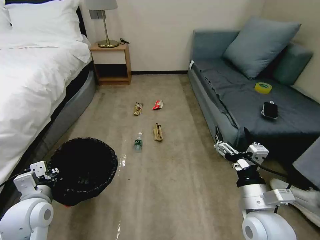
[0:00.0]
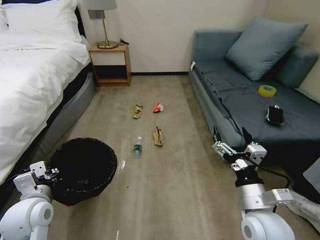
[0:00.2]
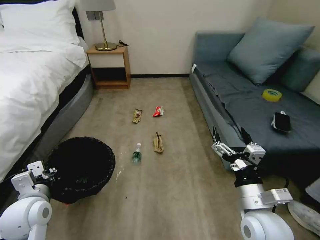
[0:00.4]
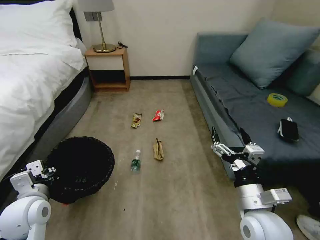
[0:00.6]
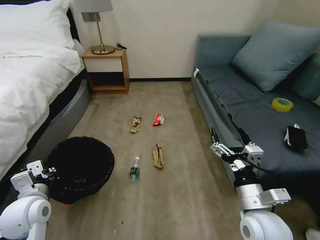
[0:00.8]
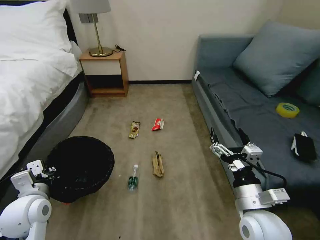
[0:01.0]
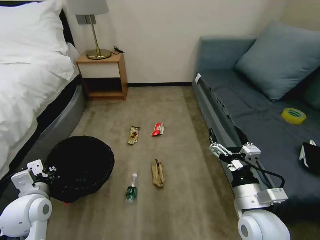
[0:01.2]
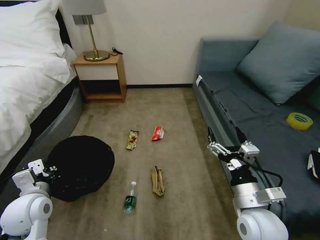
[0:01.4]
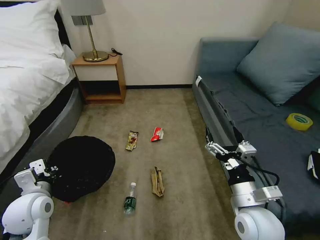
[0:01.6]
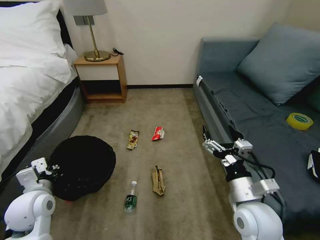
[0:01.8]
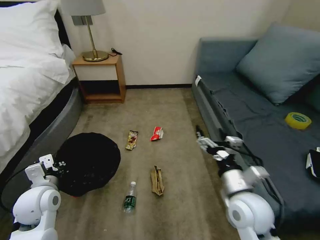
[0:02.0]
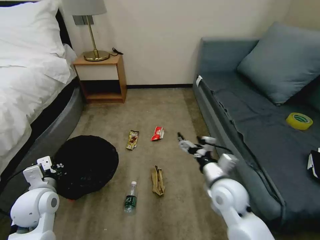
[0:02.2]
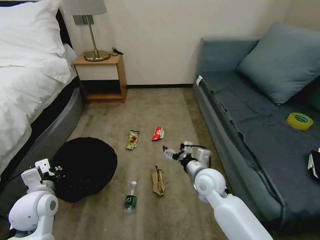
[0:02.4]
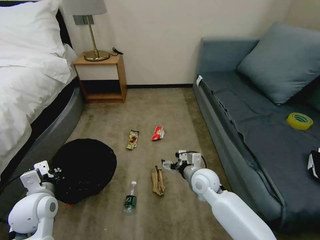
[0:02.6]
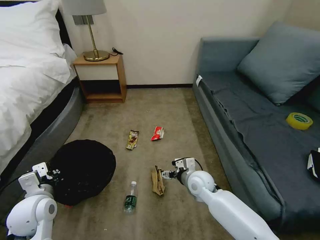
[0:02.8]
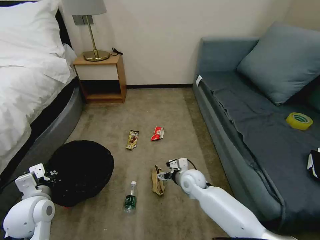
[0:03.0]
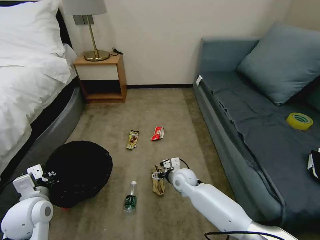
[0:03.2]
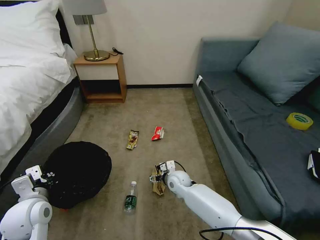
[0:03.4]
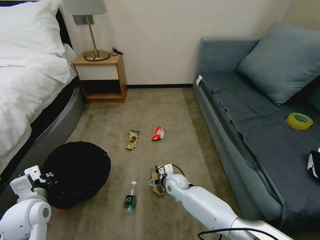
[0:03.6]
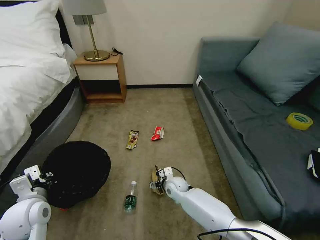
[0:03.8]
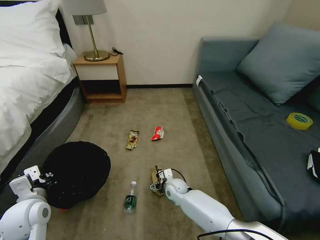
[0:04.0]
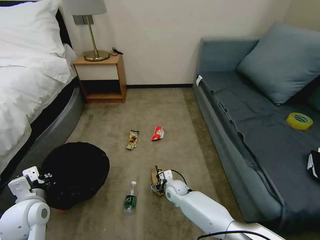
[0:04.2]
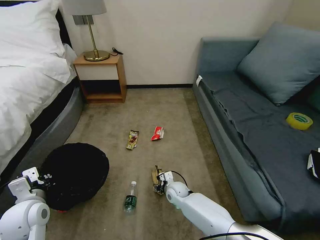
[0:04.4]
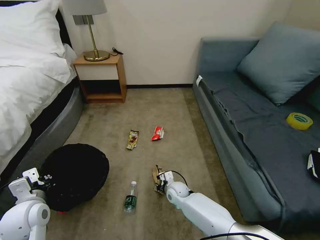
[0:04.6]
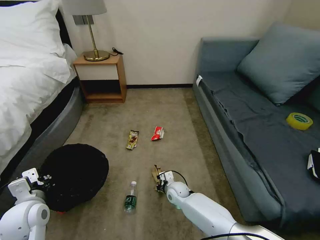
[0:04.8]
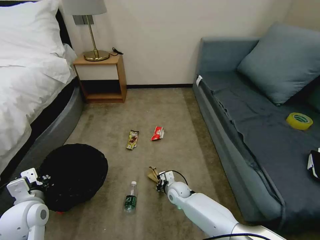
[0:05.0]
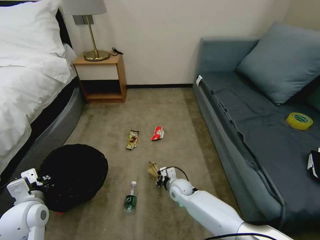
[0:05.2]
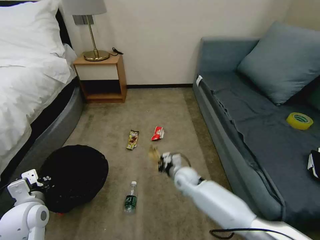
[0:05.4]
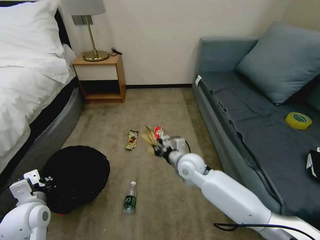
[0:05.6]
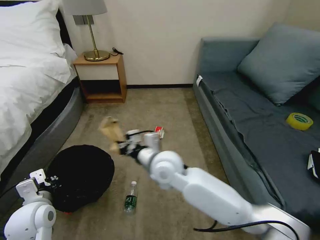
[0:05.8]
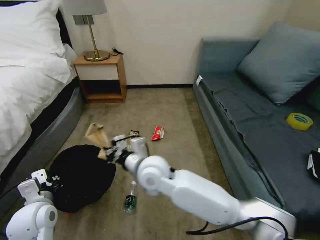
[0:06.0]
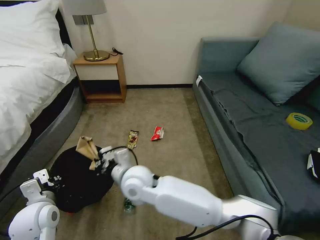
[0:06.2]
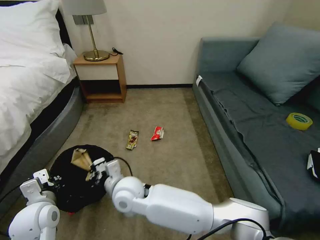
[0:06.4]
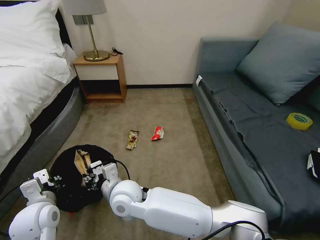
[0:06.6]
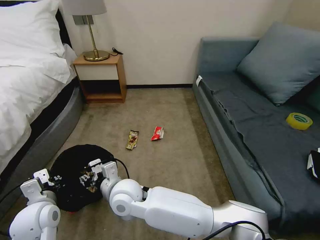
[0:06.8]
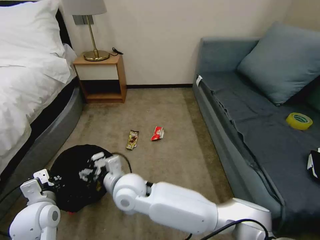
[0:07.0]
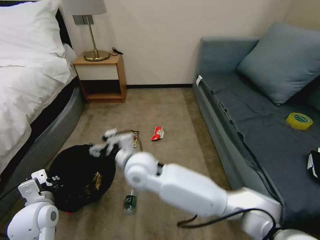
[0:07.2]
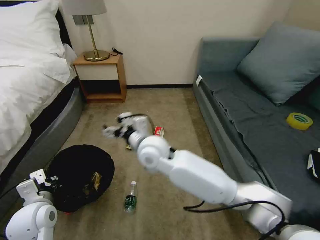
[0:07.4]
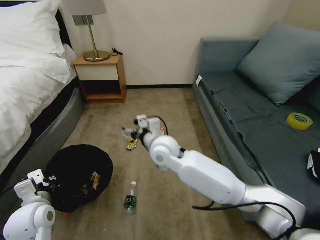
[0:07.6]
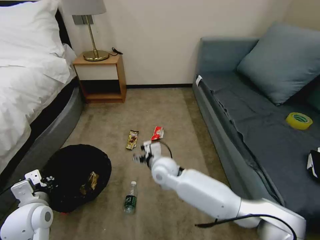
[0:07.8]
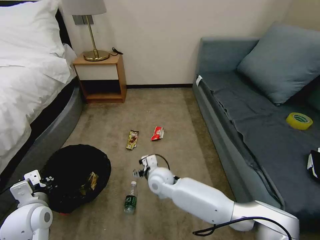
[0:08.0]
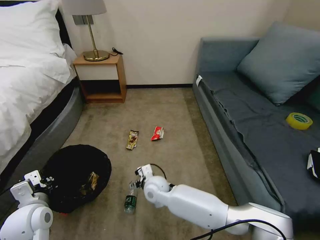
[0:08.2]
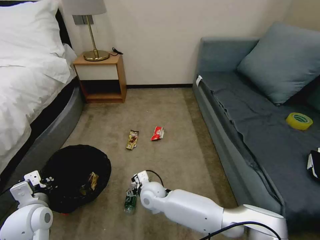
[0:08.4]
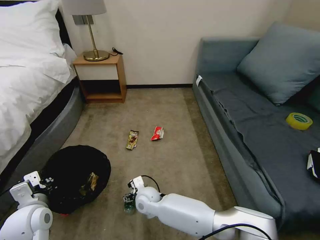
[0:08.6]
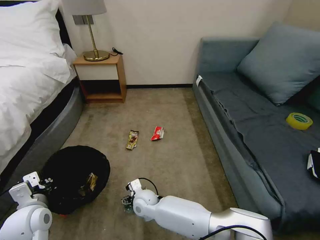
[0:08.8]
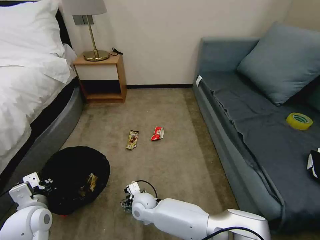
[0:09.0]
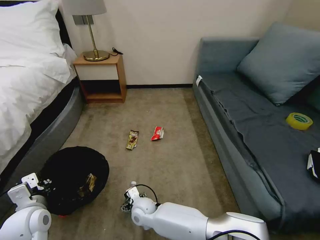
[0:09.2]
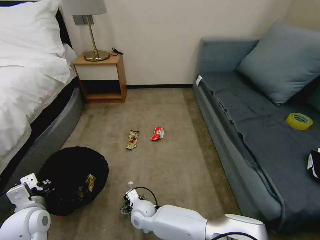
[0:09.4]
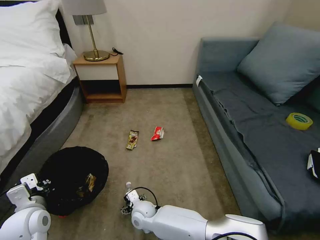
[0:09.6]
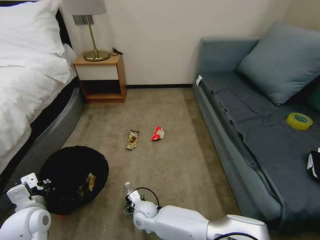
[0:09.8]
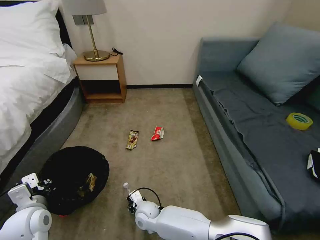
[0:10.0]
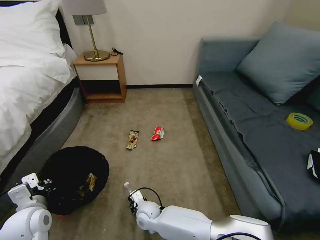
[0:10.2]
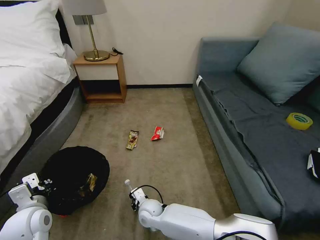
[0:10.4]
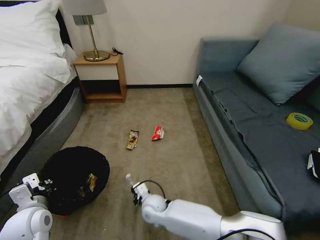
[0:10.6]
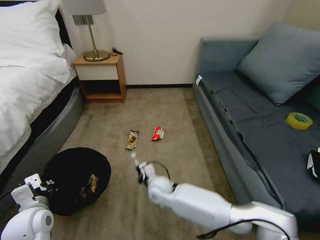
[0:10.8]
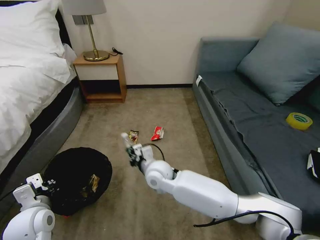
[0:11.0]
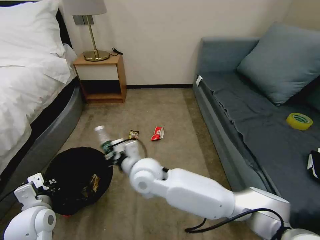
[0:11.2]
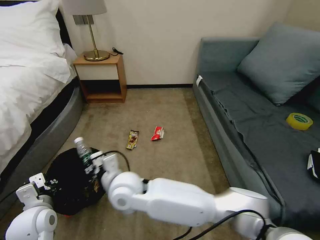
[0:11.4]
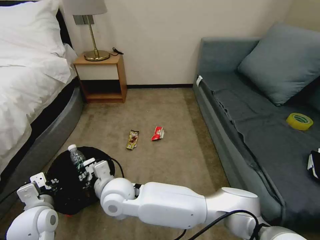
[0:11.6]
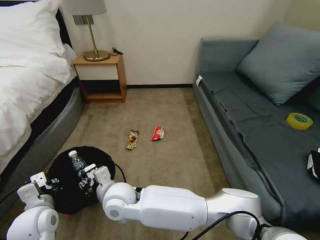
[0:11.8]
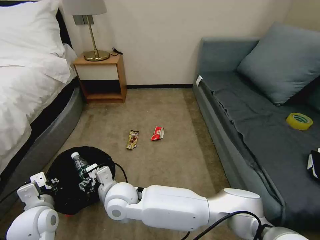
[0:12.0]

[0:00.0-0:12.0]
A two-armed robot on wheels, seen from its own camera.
Task of the whole recording: Pick up the trash bin, then pick up the garbage on the floor and place it into the trash bin.
0:01.6 to 0:03.0: The right gripper moves forward, downward and to the left, roughly 25 cm.
0:03.0 to 0:04.4: The right gripper goes some 10 cm downward, and closes its fingers.
0:04.4 to 0:06.0: The right gripper moves upward, approximately 30 cm, and closes its fingers.
0:06.0 to 0:07.6: The right gripper heads forward, covering some 5 cm, and opens its fingers.
0:07.6 to 0:09.0: The right gripper shifts approximately 25 cm downward.
0:09.0 to 0:10.4: The right gripper closes.
0:10.4 to 0:12.0: The right gripper travels upward by roughly 20 cm.

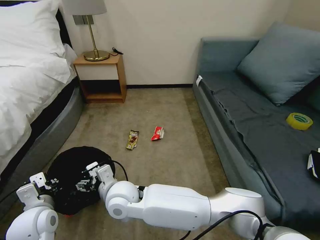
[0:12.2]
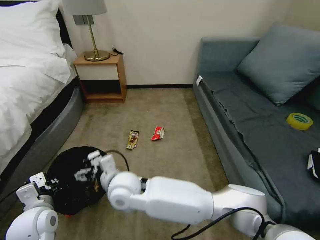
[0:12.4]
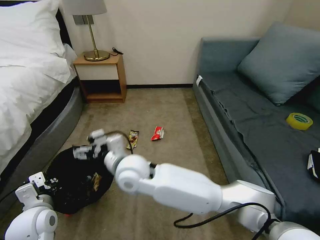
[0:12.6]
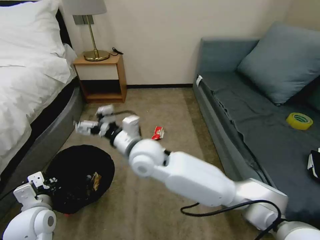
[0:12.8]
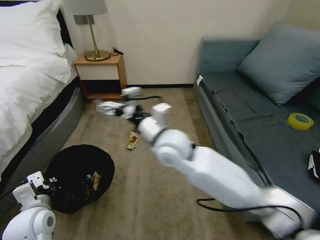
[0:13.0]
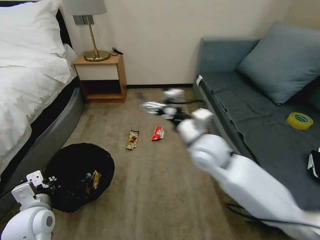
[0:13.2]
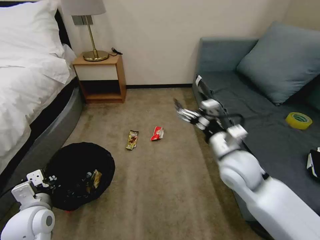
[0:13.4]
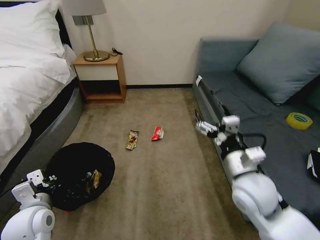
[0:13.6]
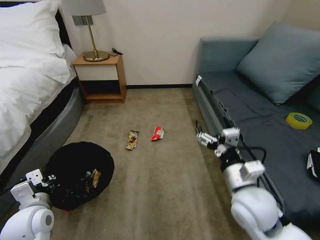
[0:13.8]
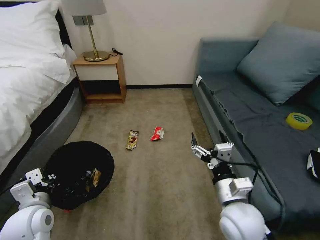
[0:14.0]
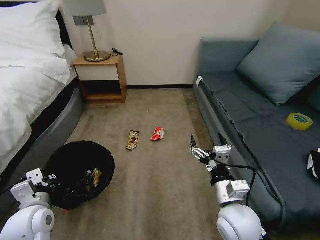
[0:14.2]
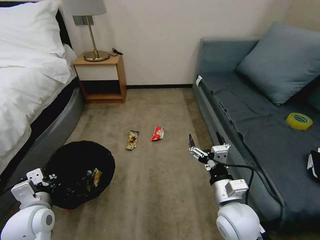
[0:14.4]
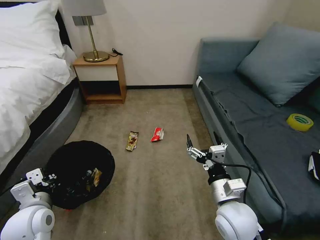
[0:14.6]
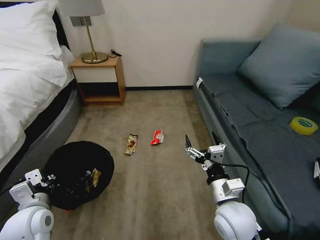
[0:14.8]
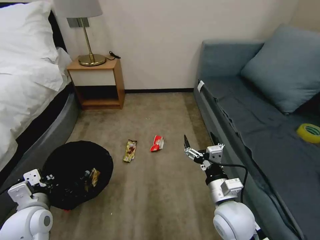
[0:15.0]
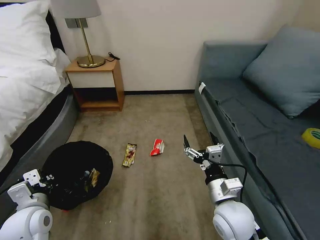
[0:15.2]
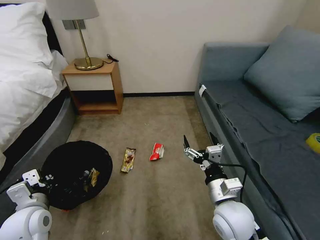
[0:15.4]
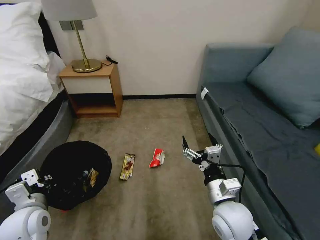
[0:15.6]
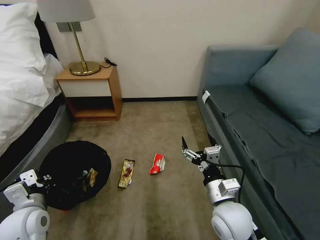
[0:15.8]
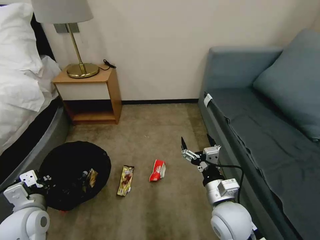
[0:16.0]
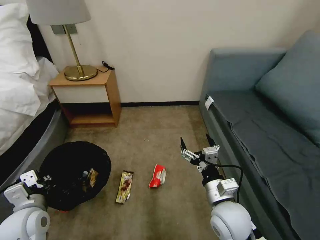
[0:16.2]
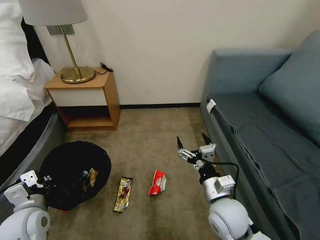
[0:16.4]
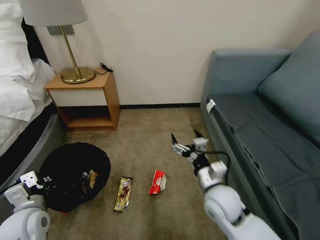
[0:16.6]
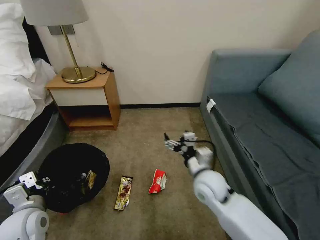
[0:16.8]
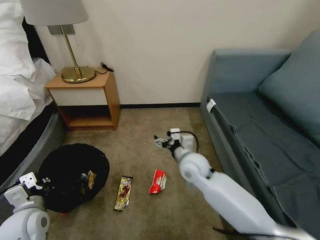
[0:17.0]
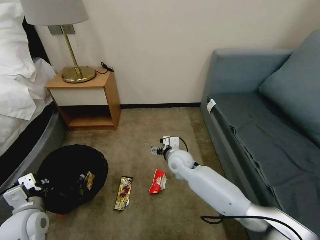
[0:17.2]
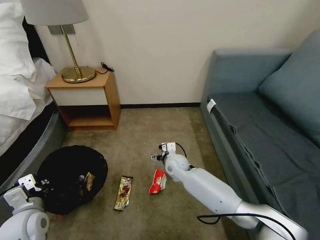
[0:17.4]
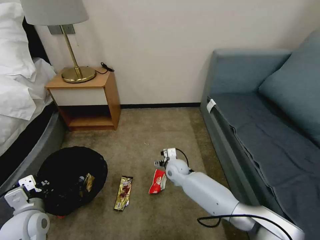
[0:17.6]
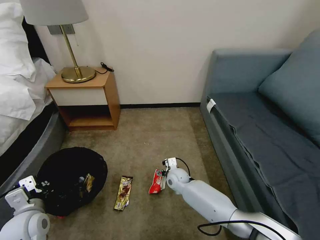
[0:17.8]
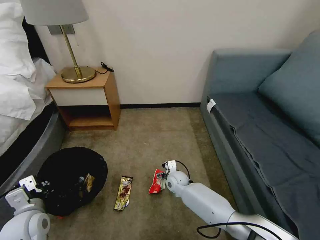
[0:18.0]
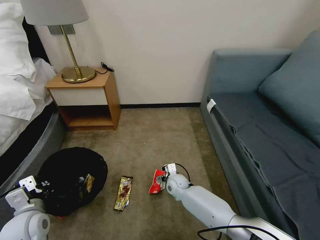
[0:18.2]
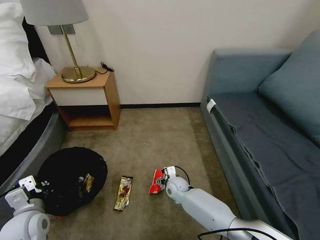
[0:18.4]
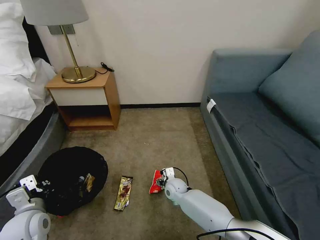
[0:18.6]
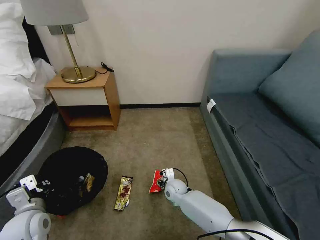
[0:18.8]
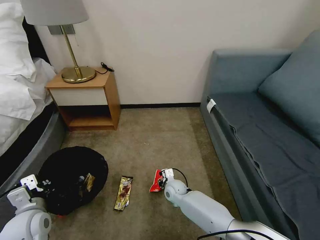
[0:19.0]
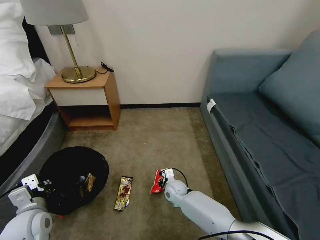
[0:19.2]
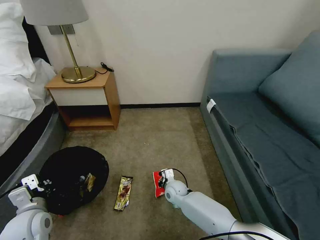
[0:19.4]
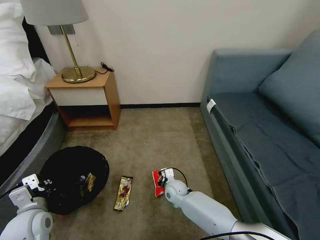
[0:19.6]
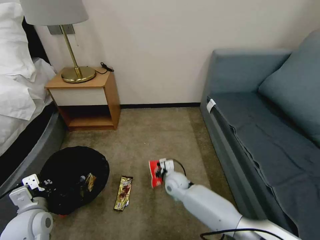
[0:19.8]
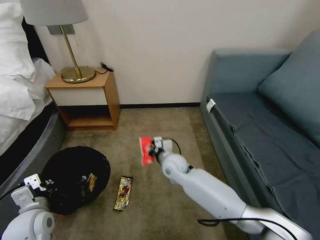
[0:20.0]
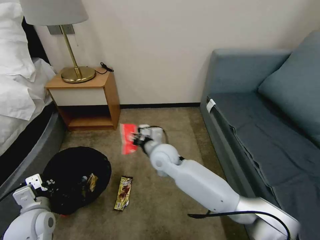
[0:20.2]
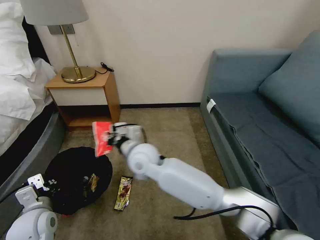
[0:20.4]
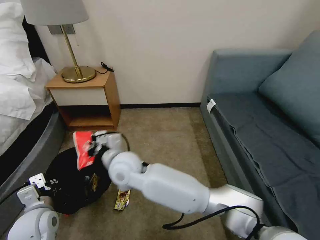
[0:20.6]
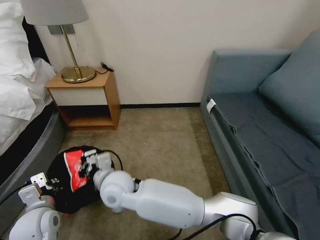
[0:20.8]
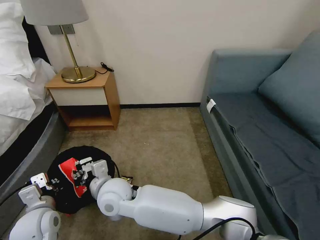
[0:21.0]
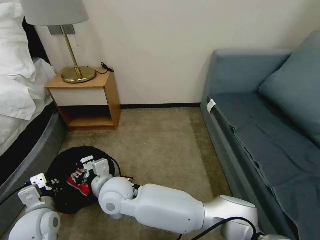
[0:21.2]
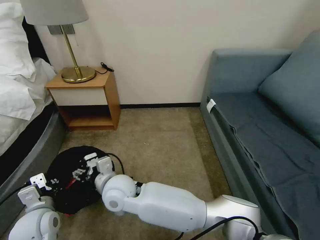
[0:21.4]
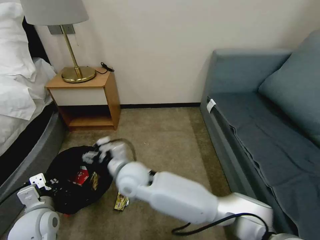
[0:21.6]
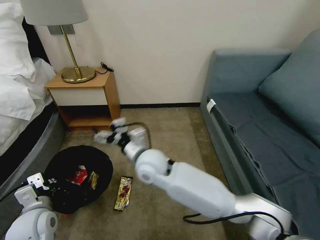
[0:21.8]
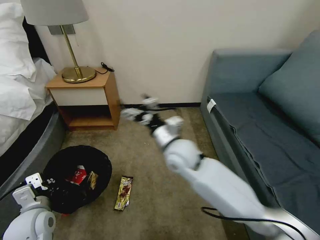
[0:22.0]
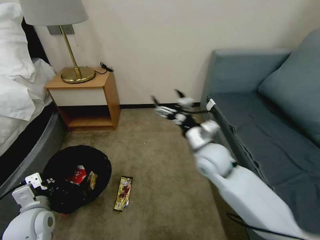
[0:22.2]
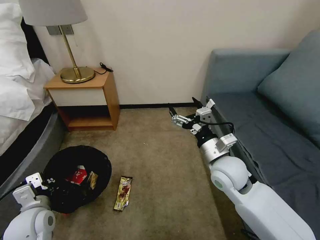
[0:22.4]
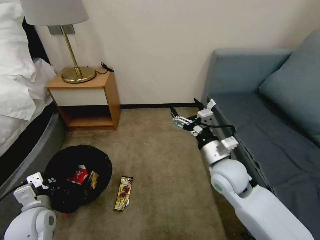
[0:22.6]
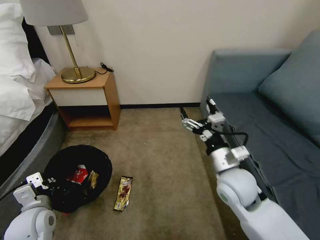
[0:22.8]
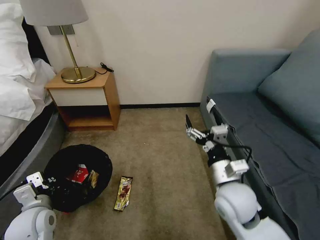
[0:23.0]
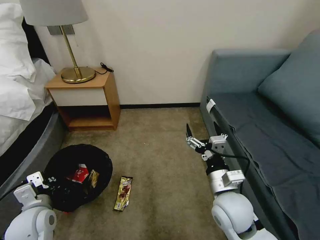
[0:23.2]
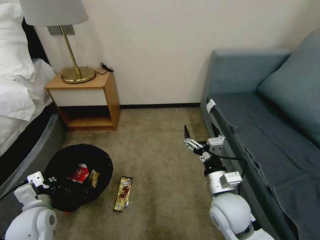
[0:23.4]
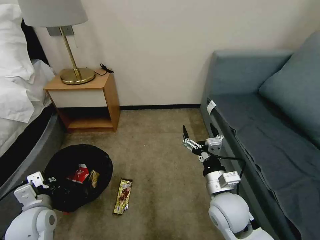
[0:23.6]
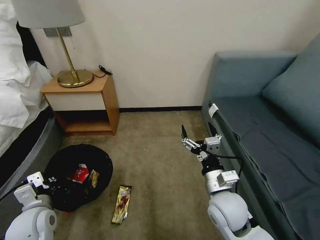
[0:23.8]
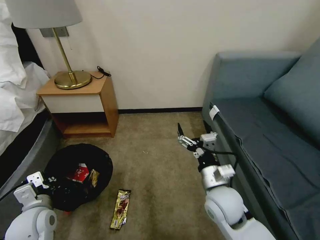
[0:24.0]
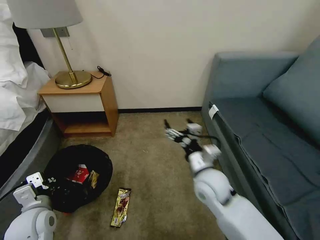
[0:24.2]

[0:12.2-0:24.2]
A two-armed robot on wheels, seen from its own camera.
Task of the whole recording: Pick up the trash bin, then pick up the garbage on the floor and place it into the trash bin.
0:12.2 to 0:13.8: The right gripper heads to the right, covering approximately 35 cm.
0:13.8 to 0:15.2: The right gripper shifts by roughly 5 cm.
0:16.6 to 0:18.2: The right gripper moves downward, forward and to the left, approximately 25 cm.
0:18.2 to 0:19.8: The right gripper closes.
0:19.8 to 0:21.2: The right gripper moves to the left, upward and backward, some 30 cm, and opens up.
0:21.2 to 0:22.6: The right gripper heads to the right, covering roughly 30 cm, and opens its fingers.
0:22.6 to 0:24.2: The right gripper reaches approximately 10 cm backward, then returns.
